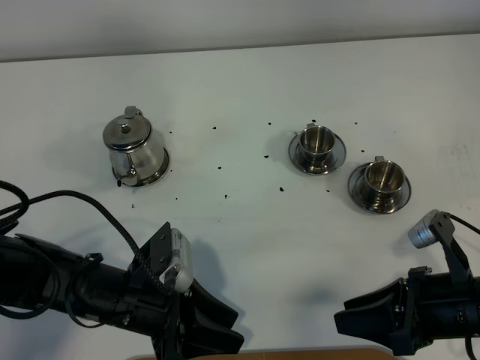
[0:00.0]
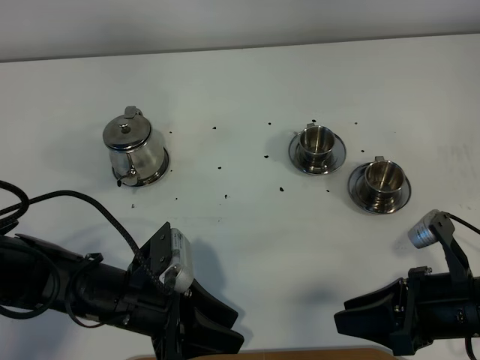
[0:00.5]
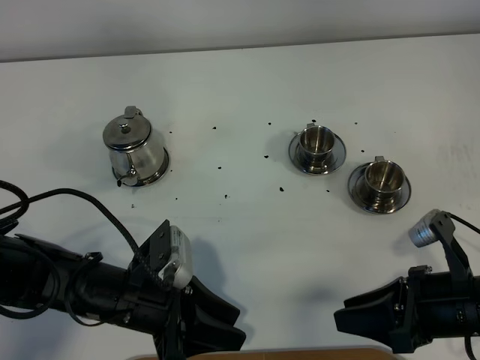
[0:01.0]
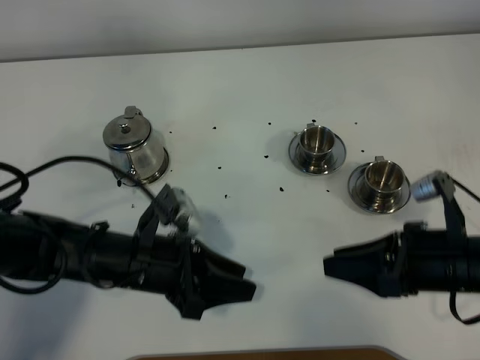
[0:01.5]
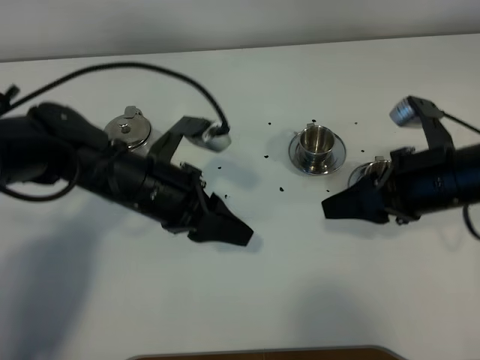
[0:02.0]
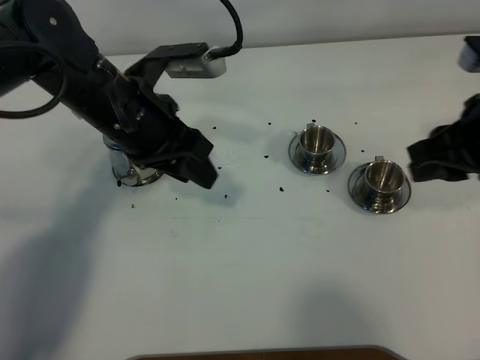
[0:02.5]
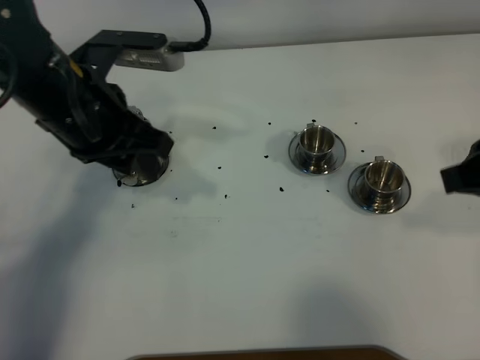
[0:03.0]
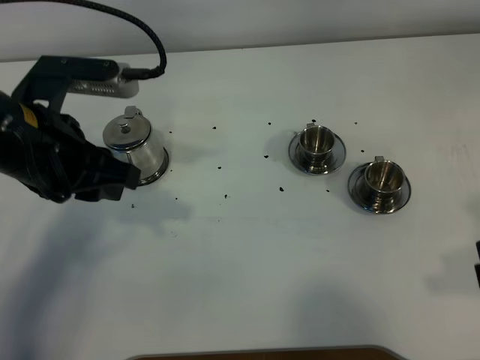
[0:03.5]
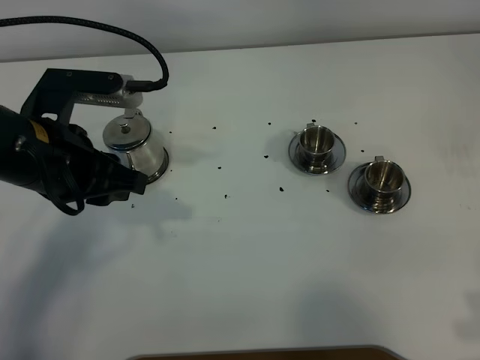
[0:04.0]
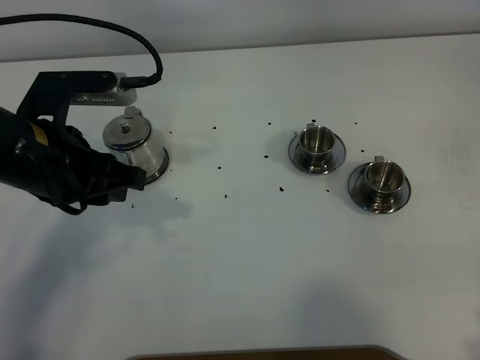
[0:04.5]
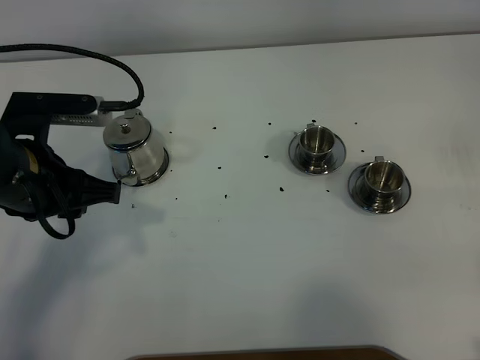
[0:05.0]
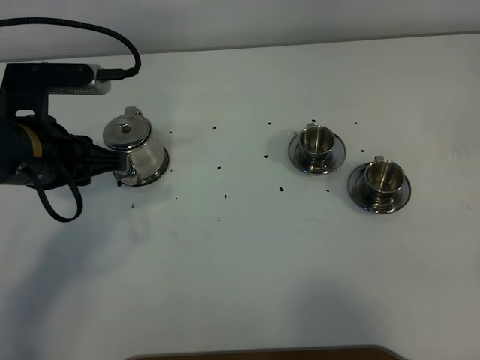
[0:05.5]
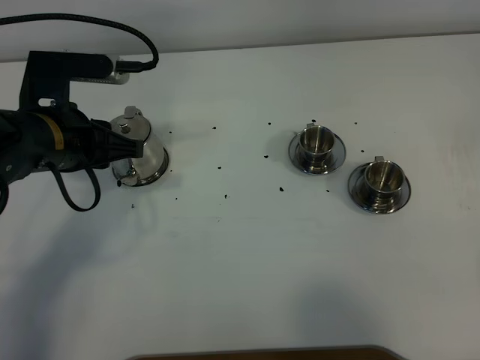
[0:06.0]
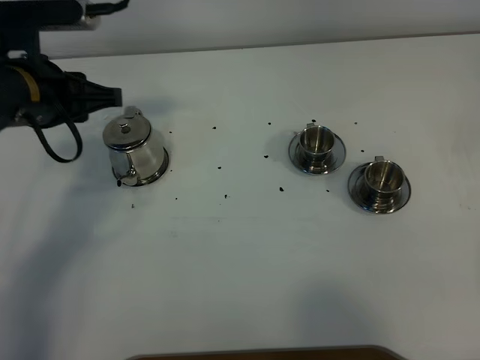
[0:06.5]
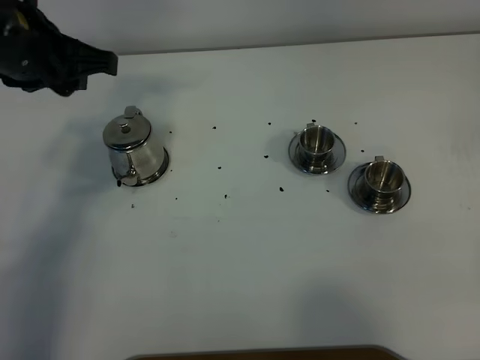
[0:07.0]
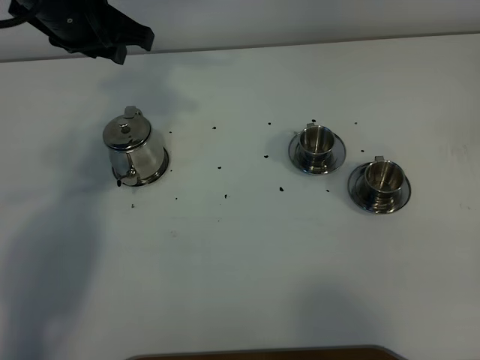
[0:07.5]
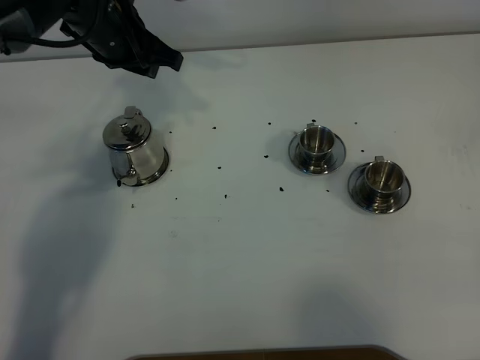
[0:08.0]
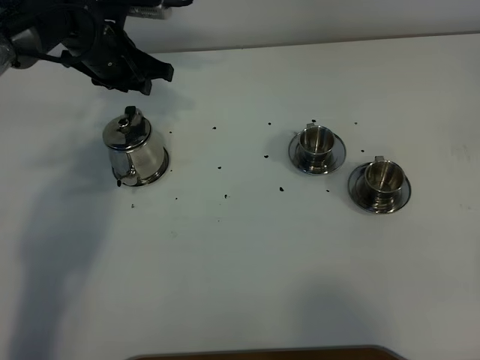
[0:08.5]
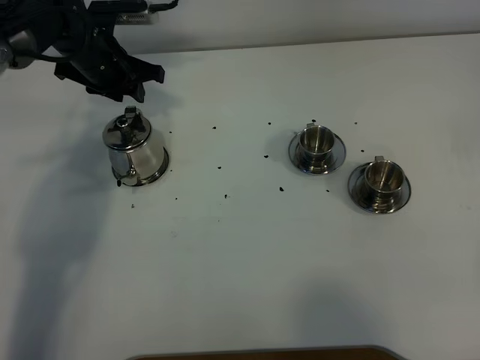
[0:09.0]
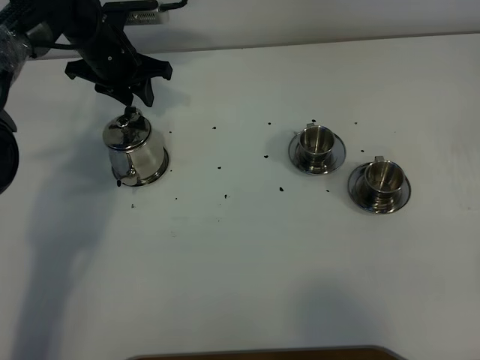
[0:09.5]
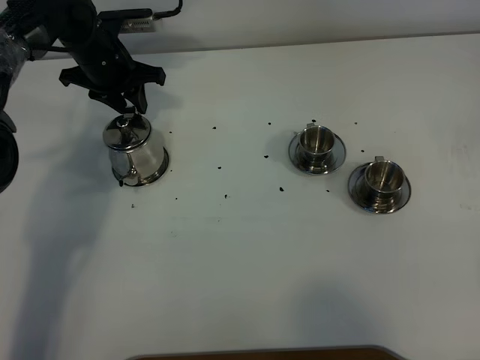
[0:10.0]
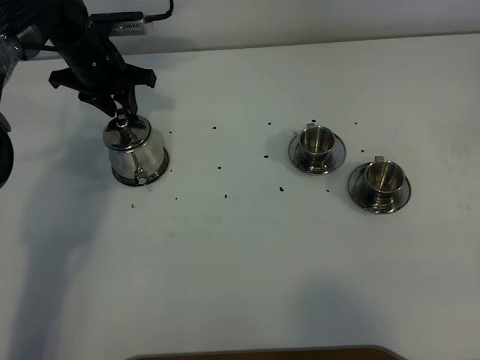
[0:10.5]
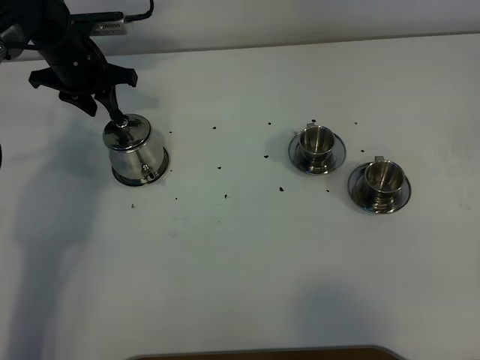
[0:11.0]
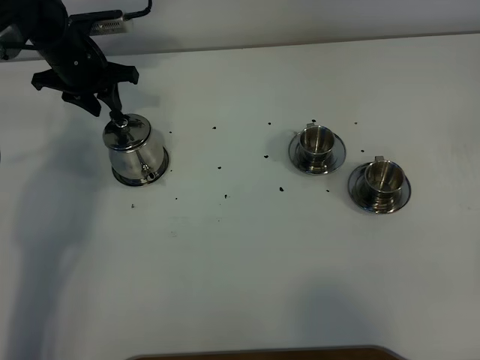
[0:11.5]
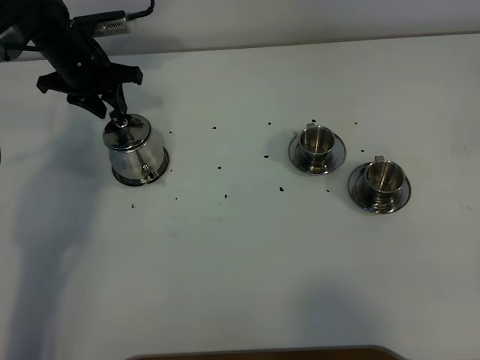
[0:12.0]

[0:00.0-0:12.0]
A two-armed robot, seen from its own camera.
Task of the whole recording: grasp the stainless steel teapot and pour the tea into the two stainless steel teacups one by one, put the stainless steel teapot back in its original place.
0:00.0 to 0:02.0: The two grippers go approximately 15 cm forward and upward.
0:02.0 to 0:04.0: The left gripper travels upward and to the left by about 10 cm; the right gripper heads backward and to the right, covering about 20 cm.
0:06.0 to 0:08.0: The left gripper heads forward, covering approximately 15 cm.
0:08.0 to 0:10.0: The left gripper shifts roughly 10 cm downward, forward and to the left.
0:10.0 to 0:12.0: The grippers stay close to where they were, moving slightly.

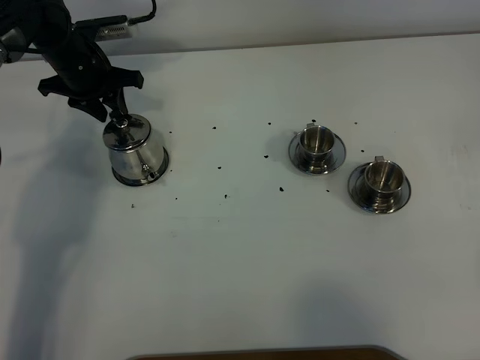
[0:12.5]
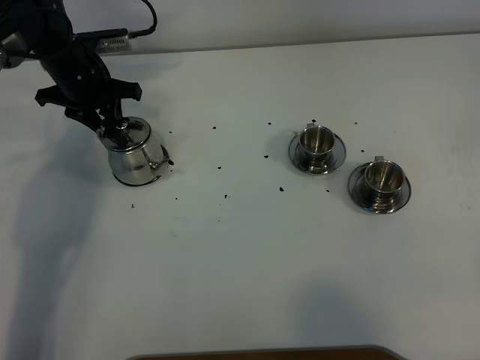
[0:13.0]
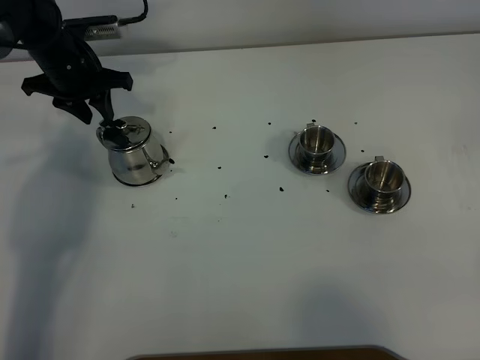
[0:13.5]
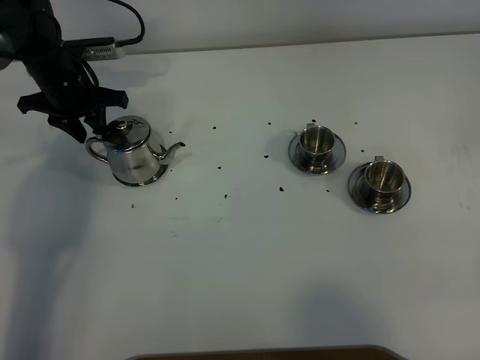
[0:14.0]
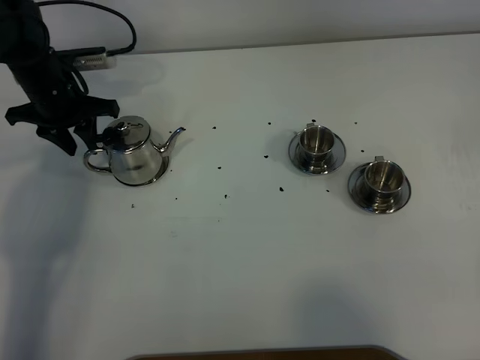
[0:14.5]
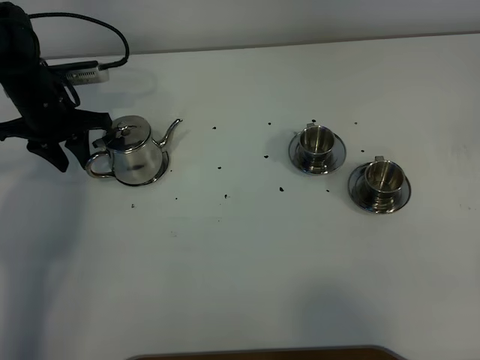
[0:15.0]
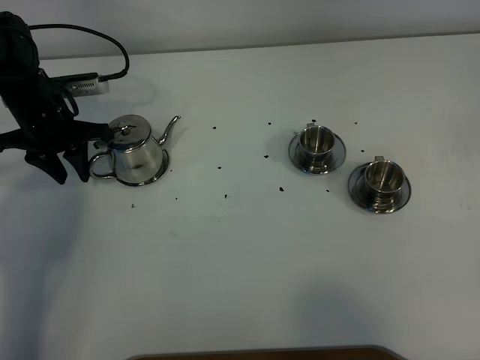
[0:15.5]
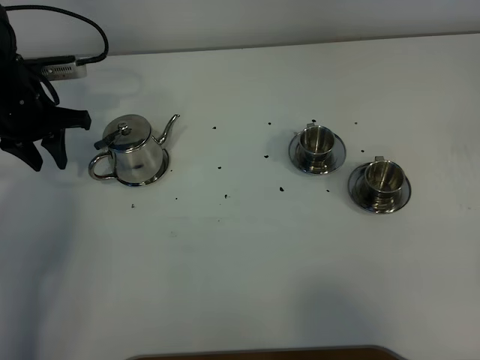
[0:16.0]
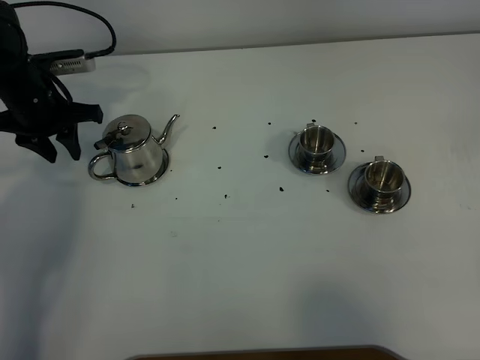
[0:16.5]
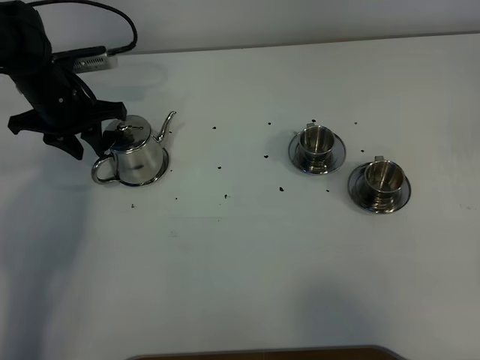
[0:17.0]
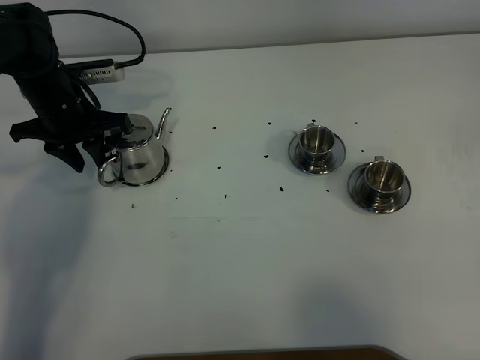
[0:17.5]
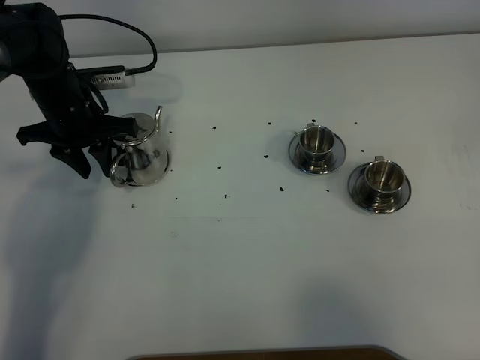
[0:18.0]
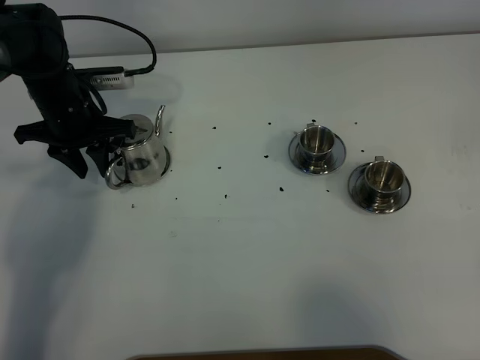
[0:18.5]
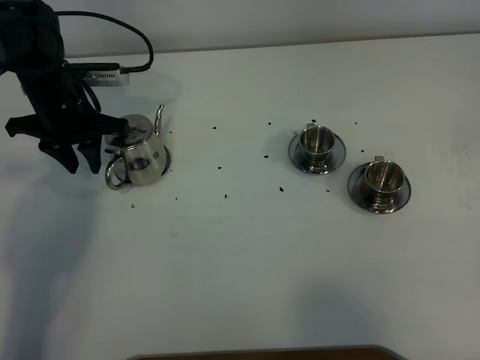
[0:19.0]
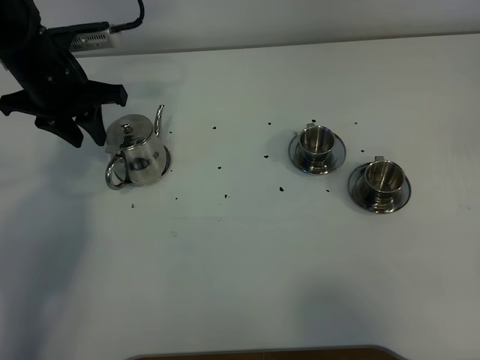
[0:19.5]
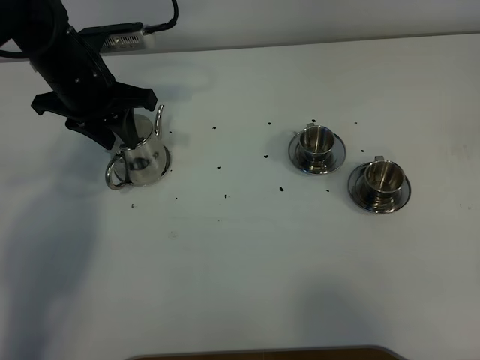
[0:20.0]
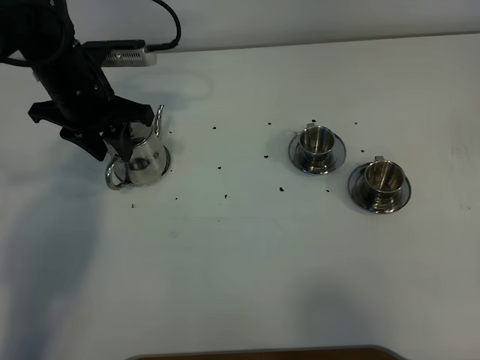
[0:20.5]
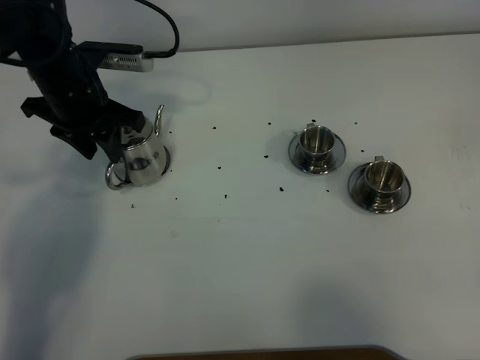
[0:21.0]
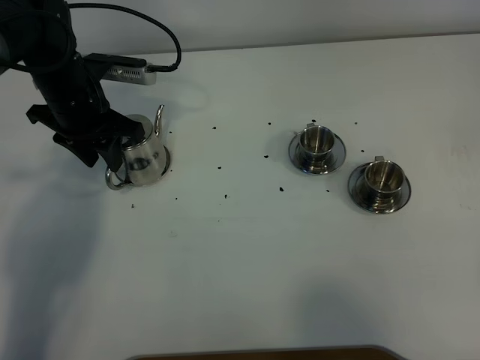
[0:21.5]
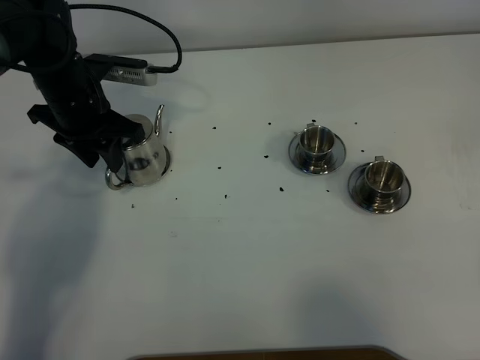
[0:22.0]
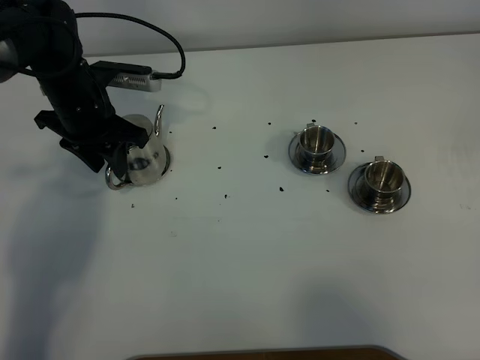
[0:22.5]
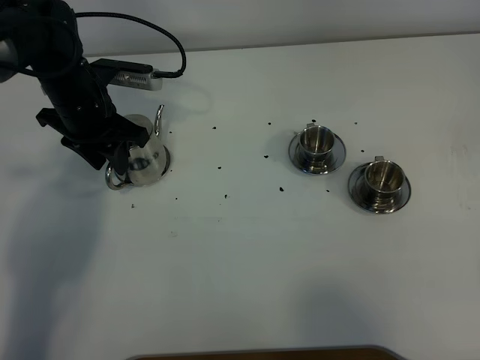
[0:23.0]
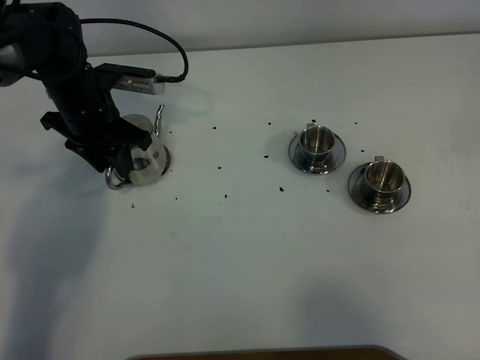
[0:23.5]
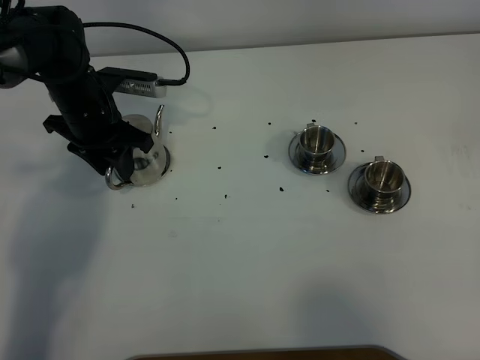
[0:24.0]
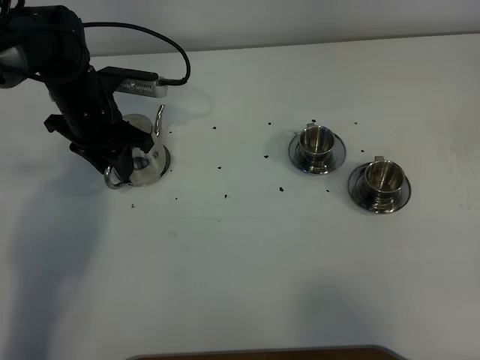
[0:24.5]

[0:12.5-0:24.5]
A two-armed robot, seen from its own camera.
Task of the whole recording: grasp the stainless steel teapot and pour the tea into the two stainless steel teacups one by one, put the stainless steel teapot back in its original place.
0:12.5 to 0:14.5: The left gripper moves some 5 cm.
0:14.5 to 0:18.5: The grippers make only small movements.
0:18.5 to 0:20.5: The left gripper heads upward, covering approximately 5 cm.
0:20.5 to 0:24.5: The grippers move only a little.

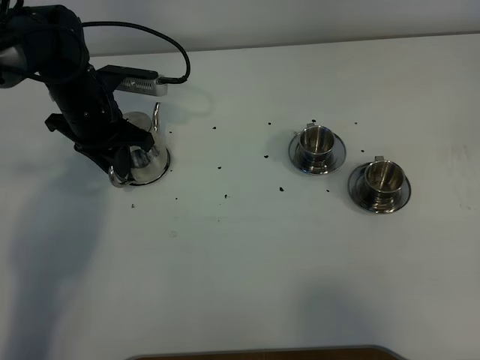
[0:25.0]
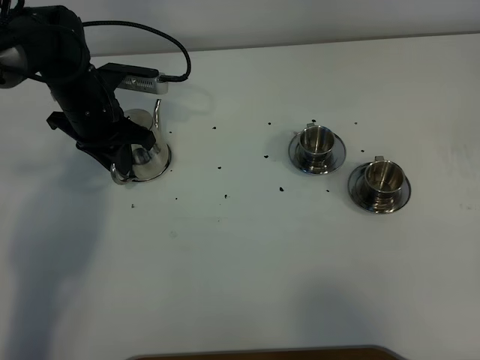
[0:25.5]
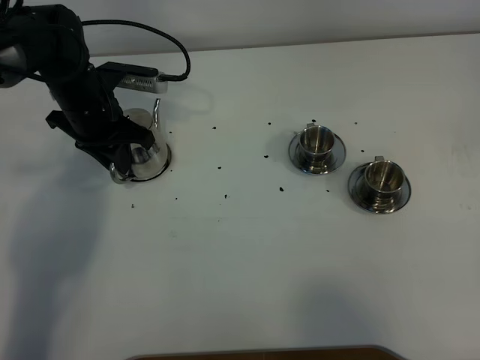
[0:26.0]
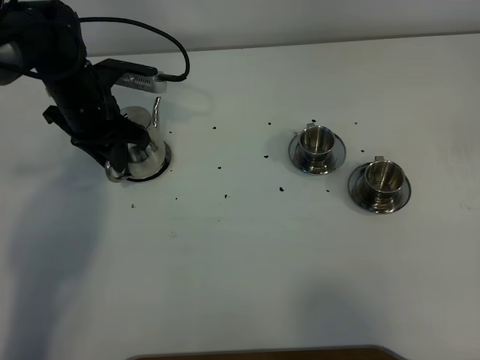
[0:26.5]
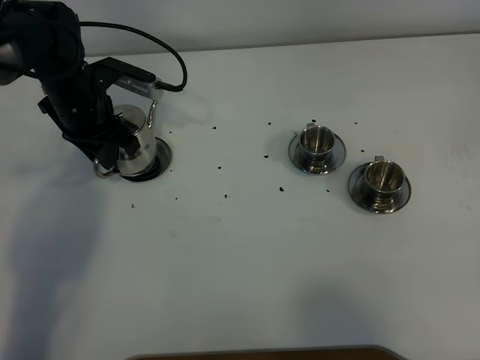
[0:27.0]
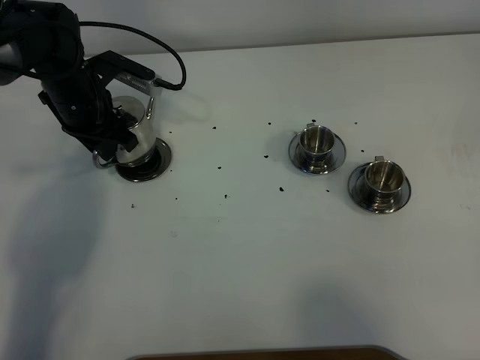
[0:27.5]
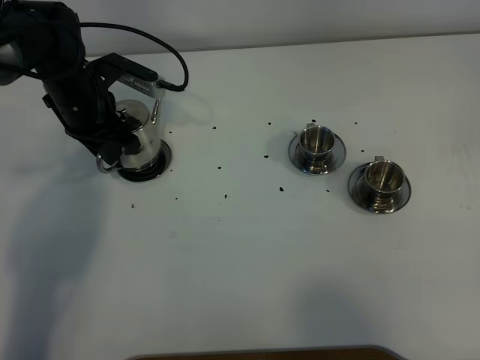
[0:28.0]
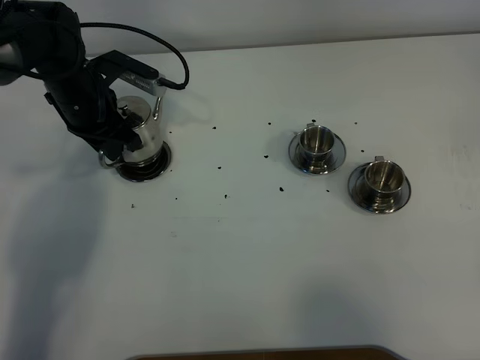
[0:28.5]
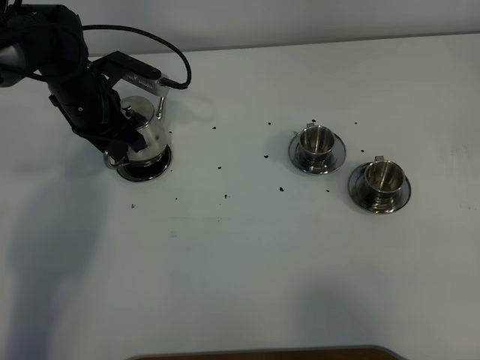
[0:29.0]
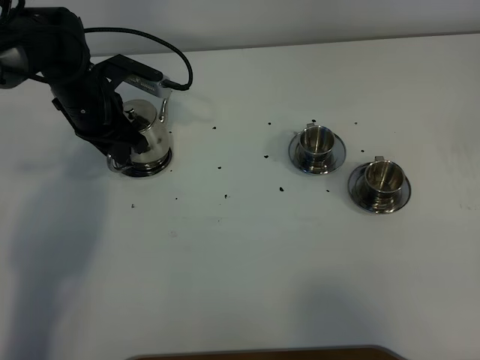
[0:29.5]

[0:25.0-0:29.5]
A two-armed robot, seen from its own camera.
Task of the whole recording: grasp the stainless steel teapot and pour the tea into the two stainless steel teacups one by one, put the stainless steel teapot back in its original place.
0:25.0 to 0:29.5: The grippers stay close to where they were, moving slightly.
